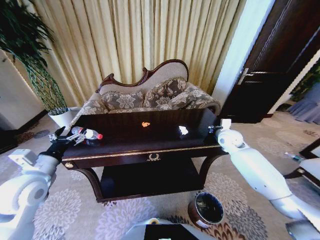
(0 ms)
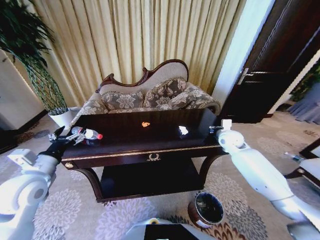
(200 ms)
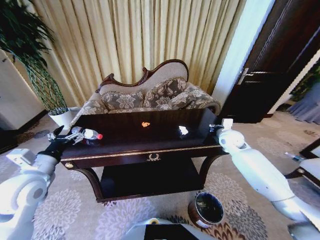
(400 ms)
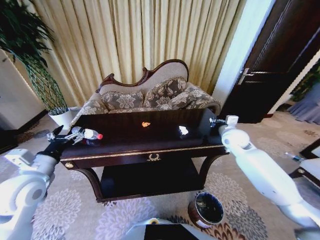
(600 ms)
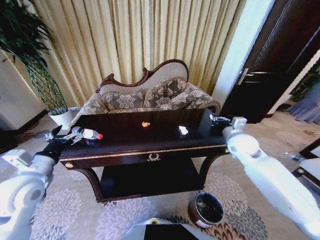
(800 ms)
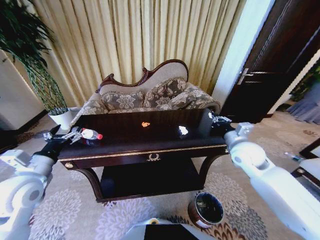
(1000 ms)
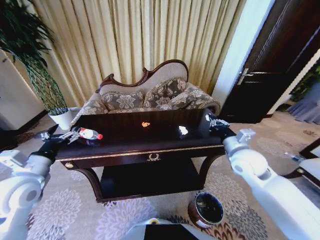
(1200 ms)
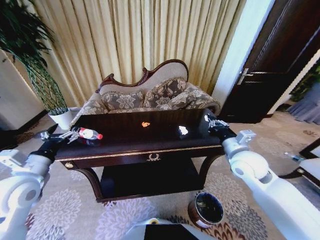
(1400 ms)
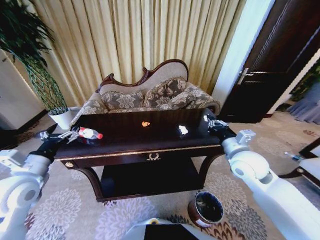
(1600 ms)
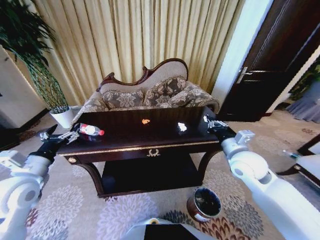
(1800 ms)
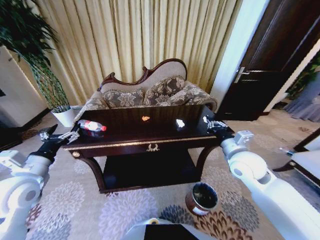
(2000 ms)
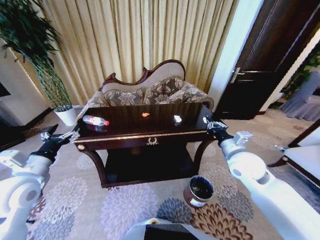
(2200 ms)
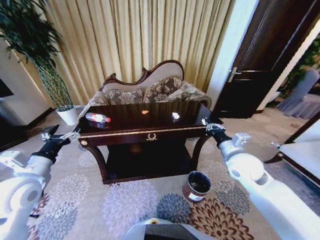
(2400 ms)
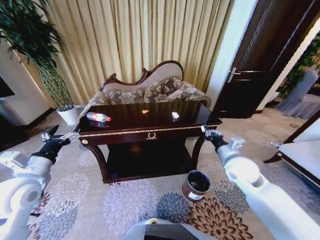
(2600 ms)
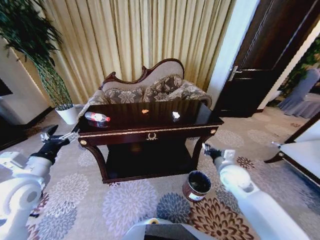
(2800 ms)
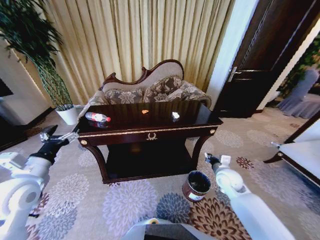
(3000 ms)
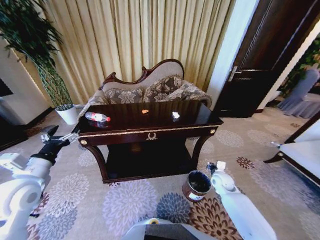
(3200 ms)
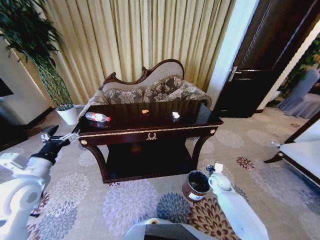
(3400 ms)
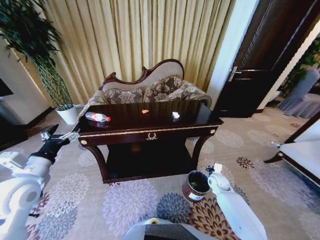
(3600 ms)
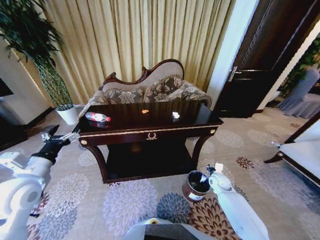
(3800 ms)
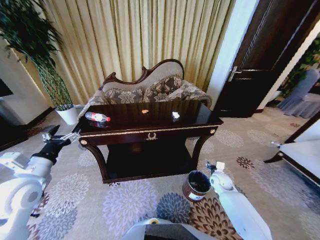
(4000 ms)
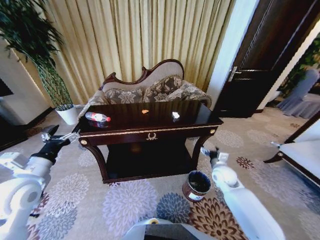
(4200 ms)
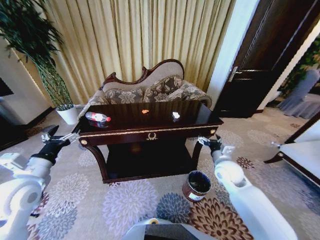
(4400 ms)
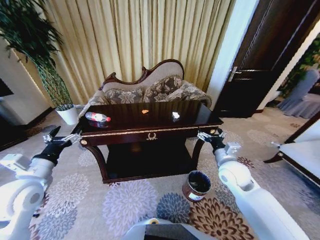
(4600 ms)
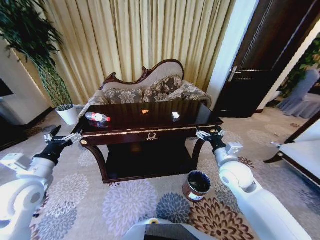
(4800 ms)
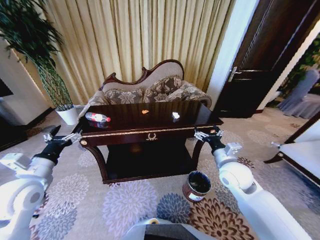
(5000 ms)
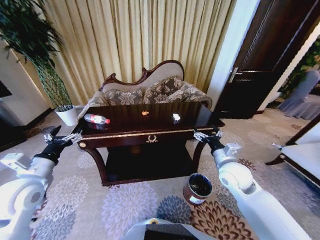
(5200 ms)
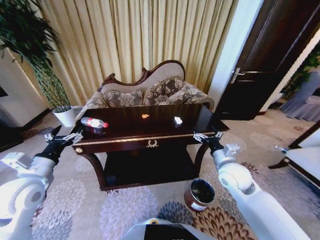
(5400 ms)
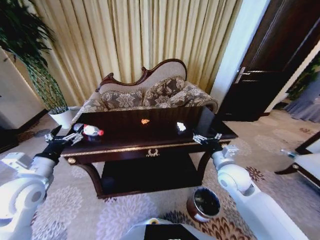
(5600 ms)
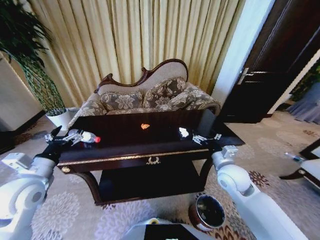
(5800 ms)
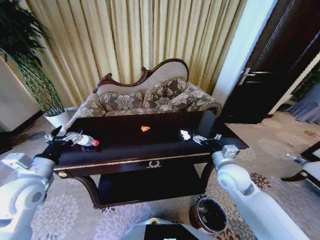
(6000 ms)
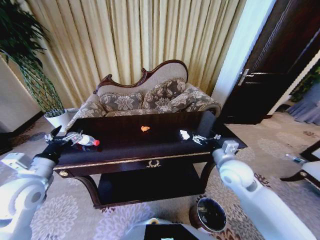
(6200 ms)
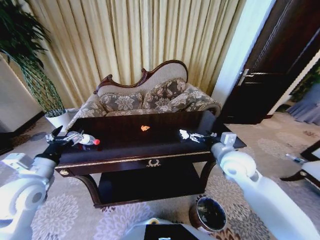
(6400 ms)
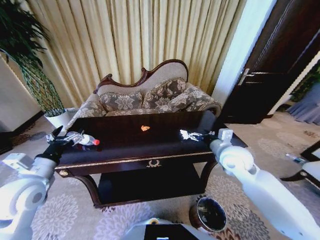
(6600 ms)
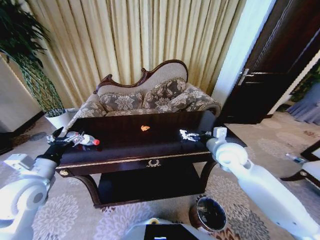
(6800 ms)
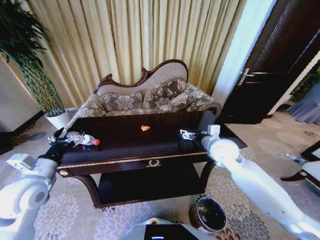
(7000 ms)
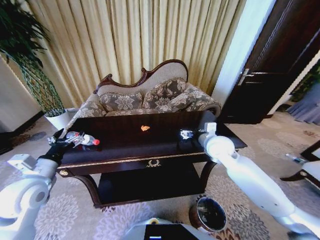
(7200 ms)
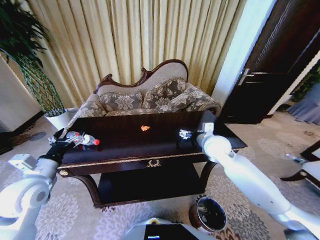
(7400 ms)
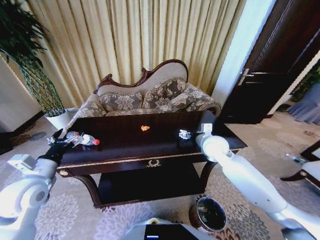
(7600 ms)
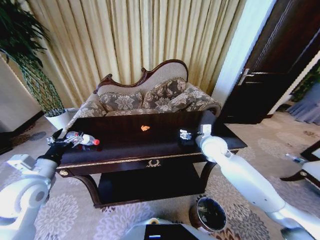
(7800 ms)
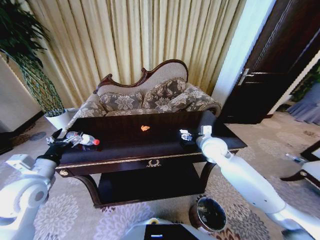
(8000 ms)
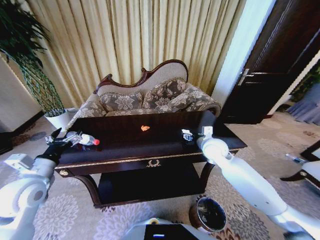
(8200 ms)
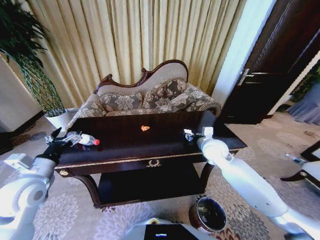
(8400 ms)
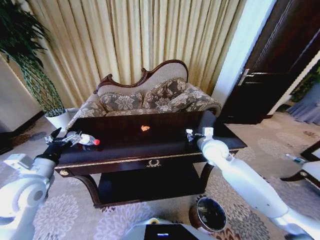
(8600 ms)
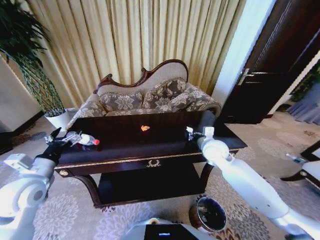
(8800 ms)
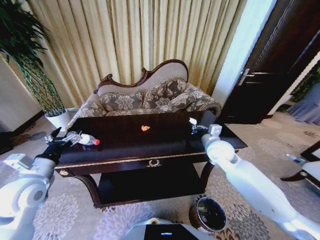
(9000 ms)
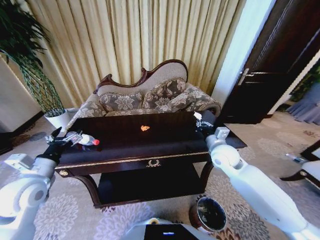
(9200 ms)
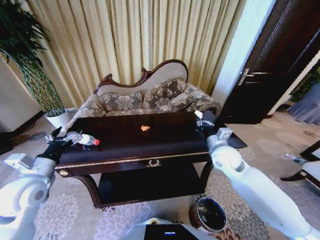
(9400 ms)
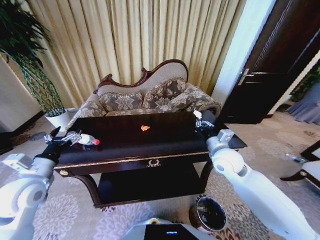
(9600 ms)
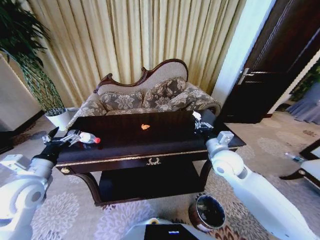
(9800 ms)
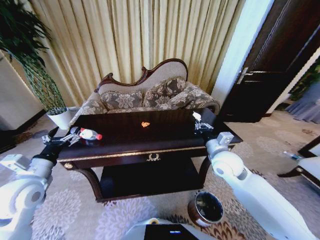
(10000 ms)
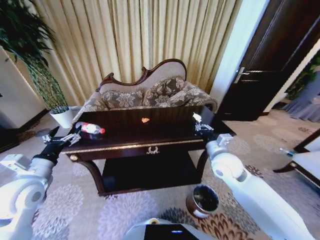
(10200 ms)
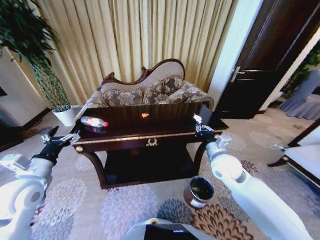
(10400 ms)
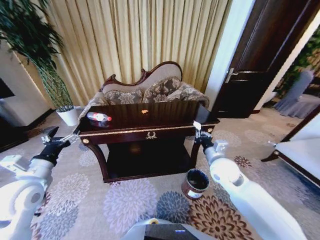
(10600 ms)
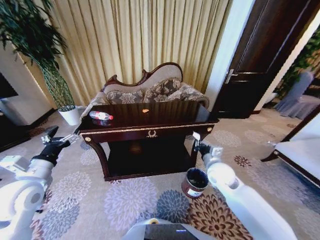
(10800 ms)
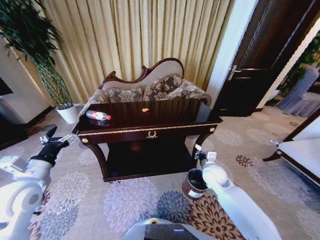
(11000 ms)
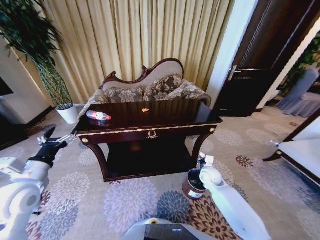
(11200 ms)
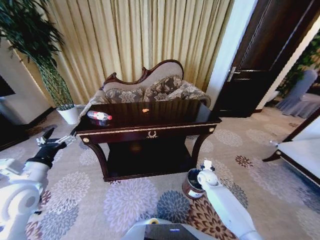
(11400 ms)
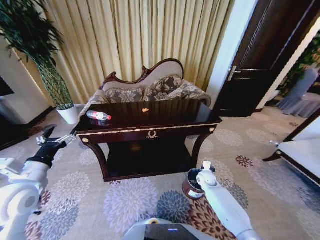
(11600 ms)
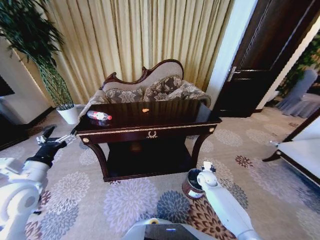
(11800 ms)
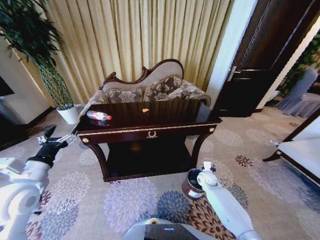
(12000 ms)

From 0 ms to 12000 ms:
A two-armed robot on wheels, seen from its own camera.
Task of the whole recording: Move to the front of the table and place the trash on the table into the trash bin.
From 0 ms to 1600 ms: The right gripper moves backward, roughly 15 cm.
From 1600 ms to 3000 ms: The right gripper moves downward, roughly 15 cm.
From 3000 ms to 4400 ms: The right gripper goes about 10 cm upward, and opens up.
From 6000 ms to 7600 ms: The right gripper is displaced forward by some 10 cm.
From 7600 ms to 9000 ms: The right gripper closes.
From 9000 ms to 10400 ms: The right gripper heads backward, covering roughly 5 cm.
From 10400 ms to 12000 ms: The right gripper moves downward, about 25 cm, and opens.

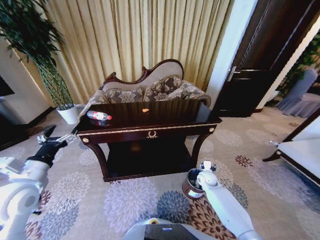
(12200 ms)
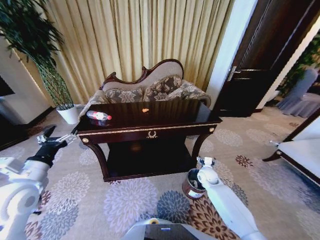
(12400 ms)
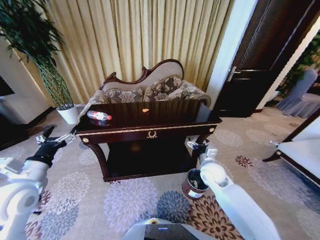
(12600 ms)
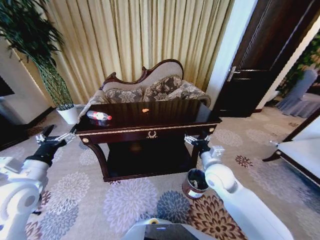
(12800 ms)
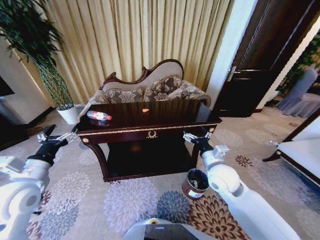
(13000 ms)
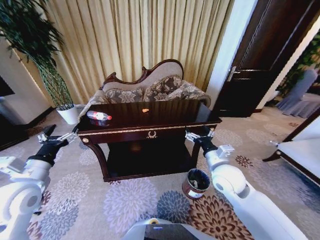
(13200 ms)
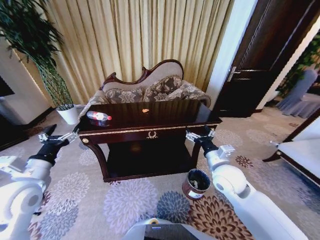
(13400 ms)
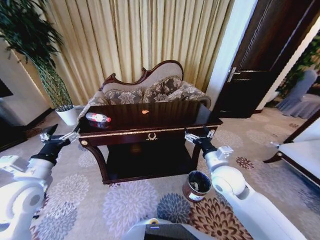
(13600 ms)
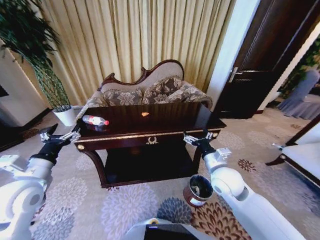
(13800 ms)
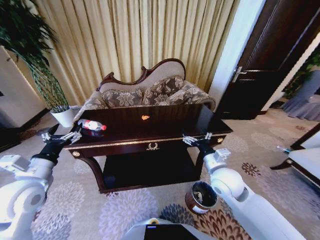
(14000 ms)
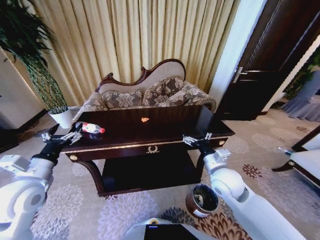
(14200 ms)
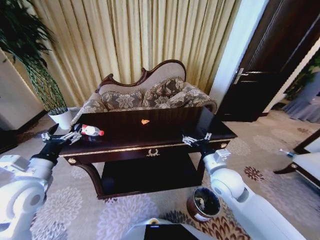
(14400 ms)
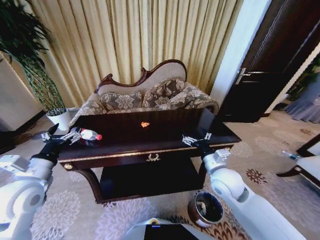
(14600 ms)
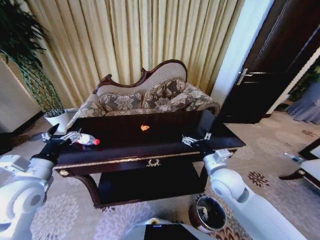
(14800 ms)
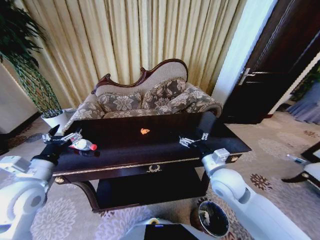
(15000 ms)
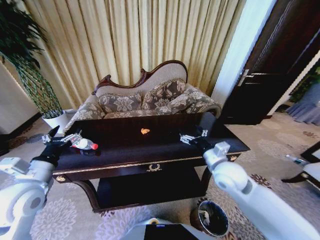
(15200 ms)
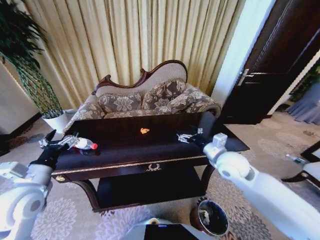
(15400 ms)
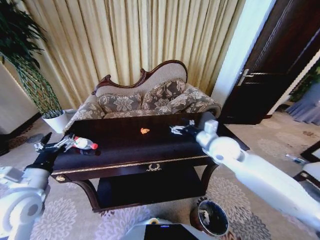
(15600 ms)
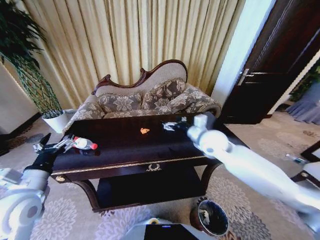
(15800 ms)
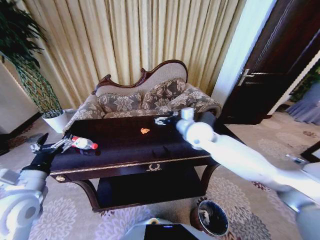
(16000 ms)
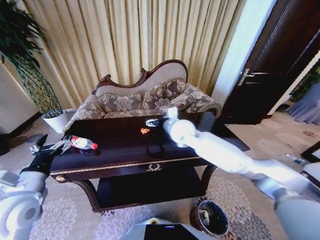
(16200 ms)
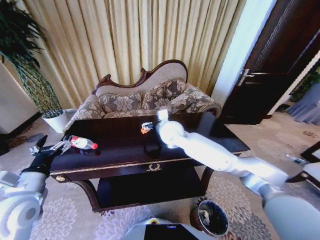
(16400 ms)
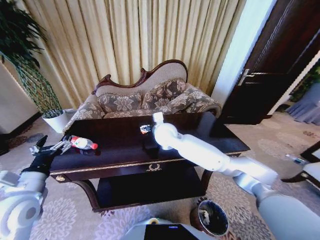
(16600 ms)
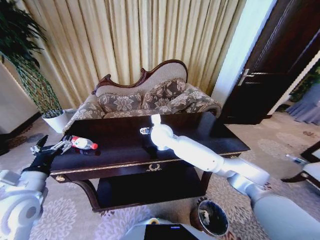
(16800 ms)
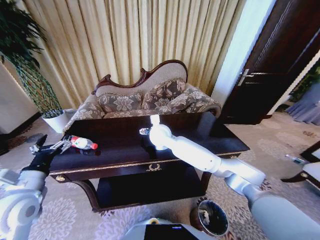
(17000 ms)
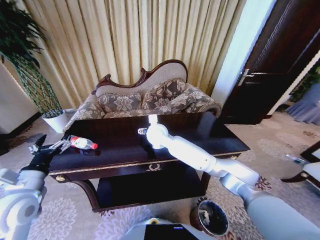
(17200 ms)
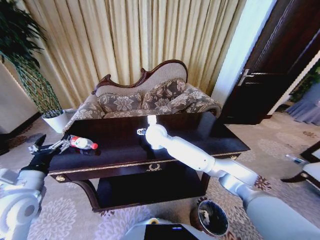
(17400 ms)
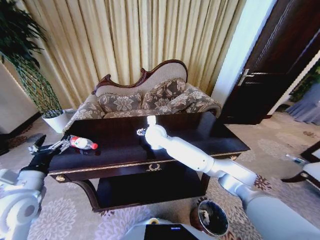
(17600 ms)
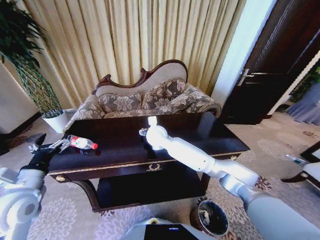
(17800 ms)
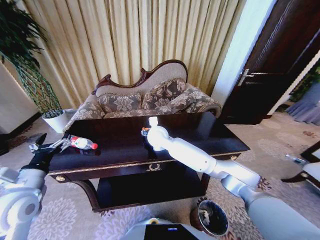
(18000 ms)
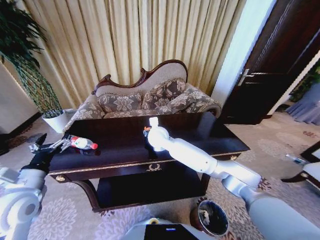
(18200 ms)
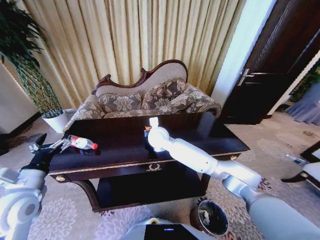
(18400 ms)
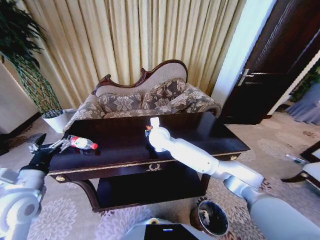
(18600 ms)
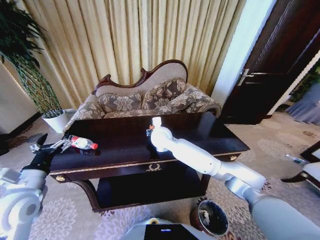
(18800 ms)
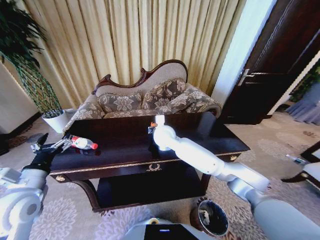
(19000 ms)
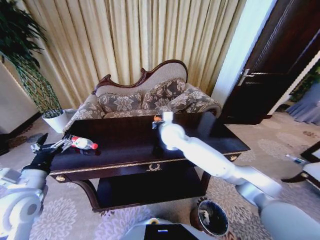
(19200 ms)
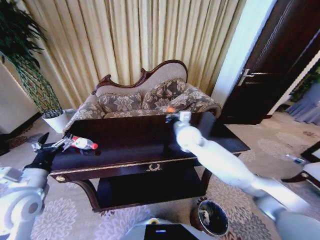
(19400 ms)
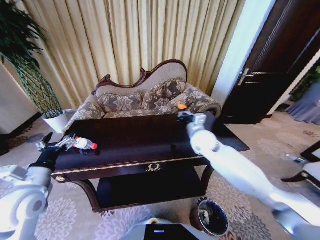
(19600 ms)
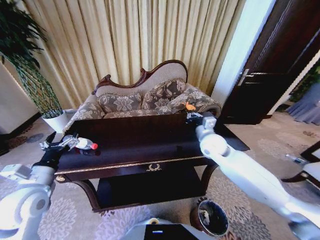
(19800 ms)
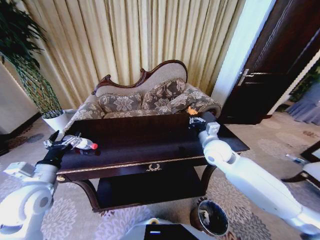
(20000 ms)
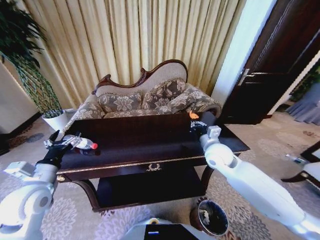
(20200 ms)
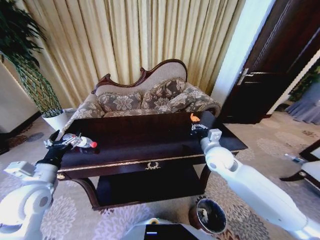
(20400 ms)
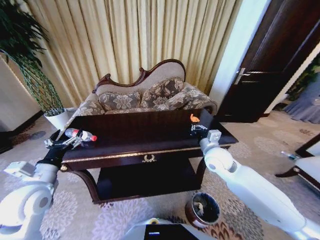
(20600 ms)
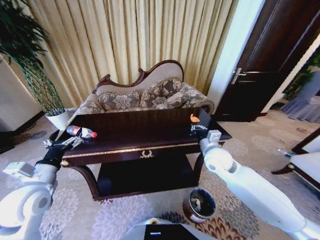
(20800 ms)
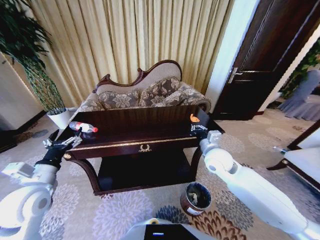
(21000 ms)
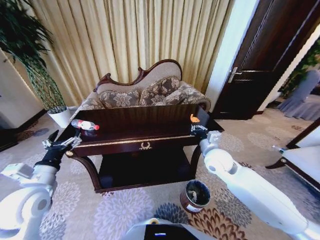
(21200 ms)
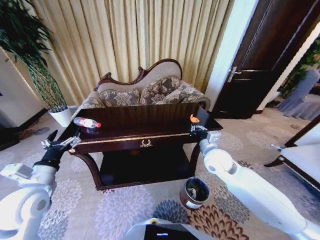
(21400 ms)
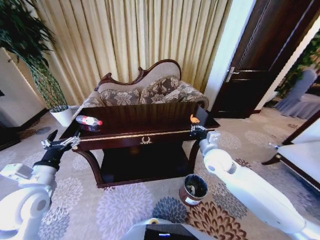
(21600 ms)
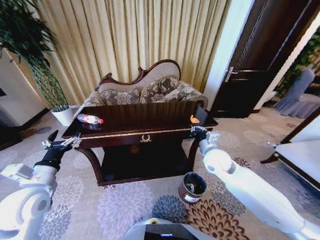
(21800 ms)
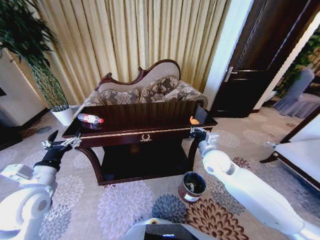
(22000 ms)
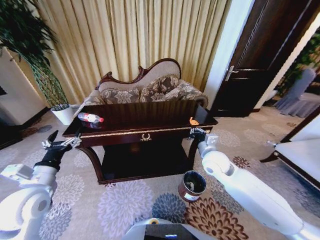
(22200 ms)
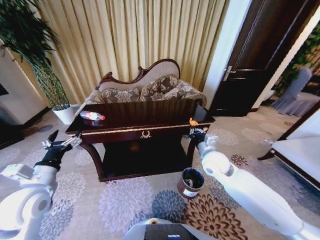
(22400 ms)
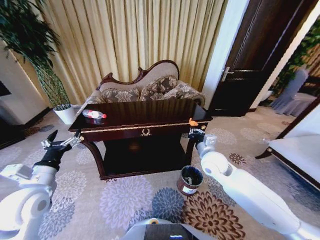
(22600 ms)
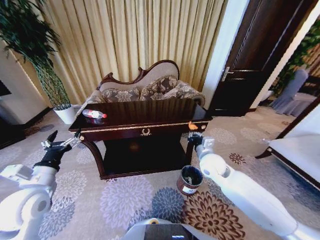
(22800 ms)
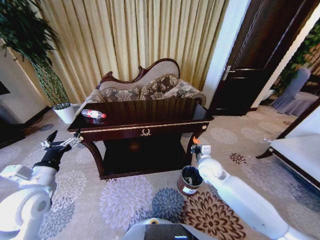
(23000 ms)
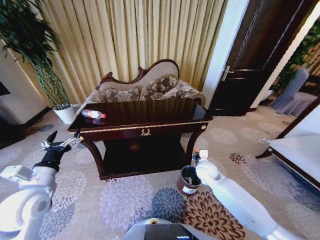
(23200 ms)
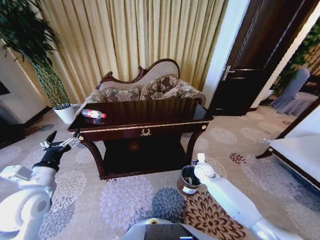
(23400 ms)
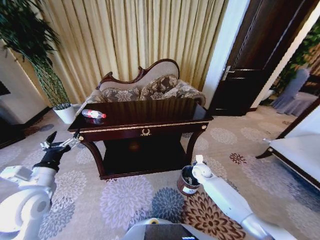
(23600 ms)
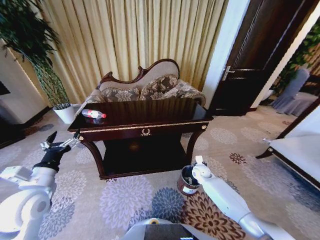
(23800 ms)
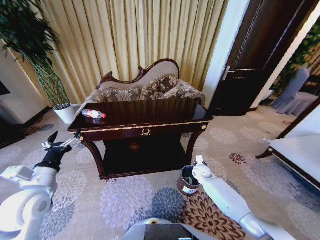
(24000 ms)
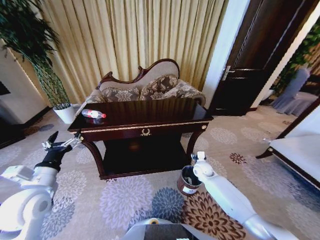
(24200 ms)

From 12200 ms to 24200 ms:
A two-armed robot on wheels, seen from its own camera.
Task of the whole recording: Move to the front of the table and place the trash on the table into the trash bin.
From 12200 ms to 13800 ms: The right gripper heads upward and backward, covering roughly 25 cm.
From 15200 ms to 16600 ms: The right gripper heads to the left and forward, covering about 25 cm.
From 16600 ms to 18200 ms: The right gripper closes its fingers.
From 18200 ms to 19800 ms: The right gripper goes some 25 cm to the right, and closes its fingers.
From 19800 ms to 21200 ms: The right gripper moves roughly 5 cm.
From 22600 ms to 24200 ms: The right gripper travels downward by approximately 20 cm, and opens up.
